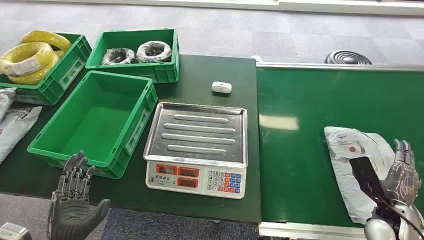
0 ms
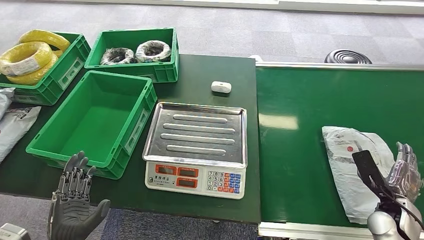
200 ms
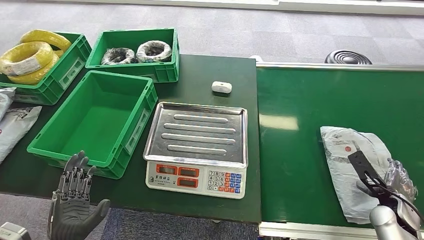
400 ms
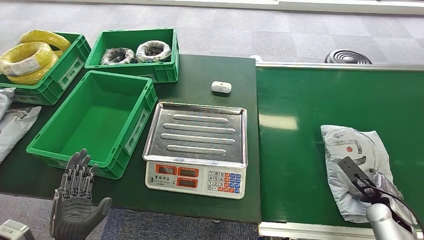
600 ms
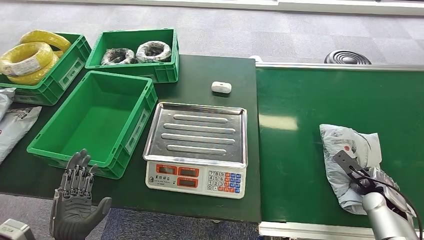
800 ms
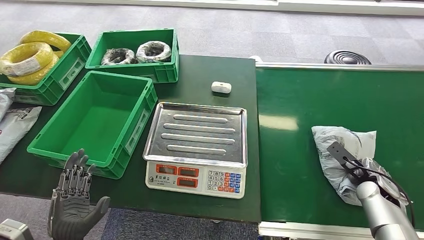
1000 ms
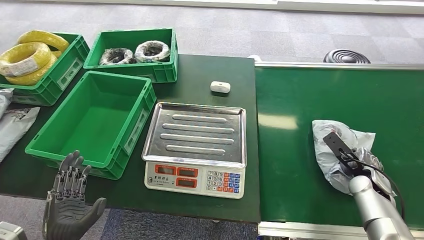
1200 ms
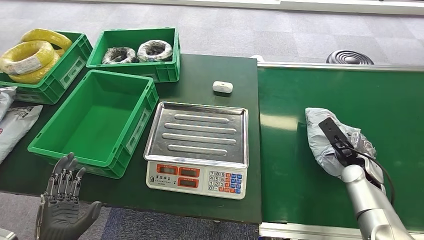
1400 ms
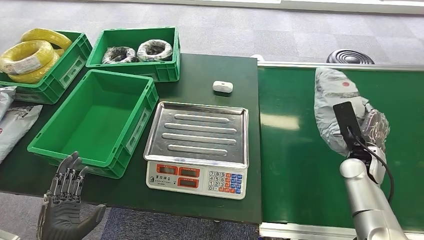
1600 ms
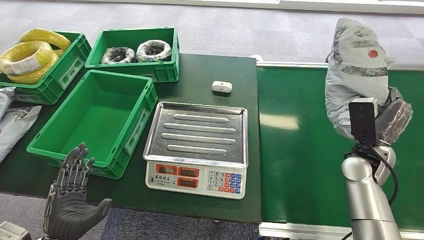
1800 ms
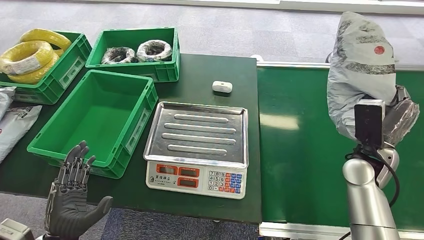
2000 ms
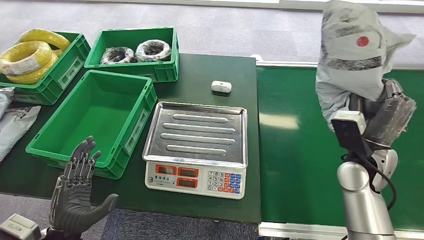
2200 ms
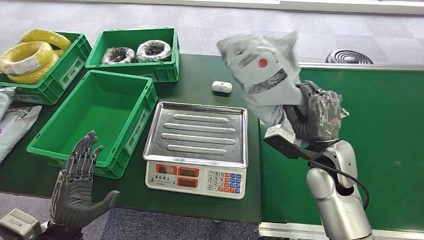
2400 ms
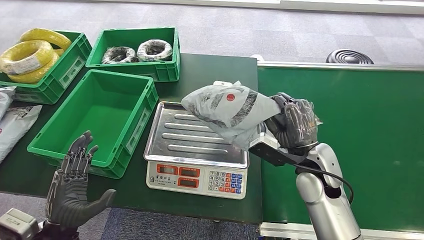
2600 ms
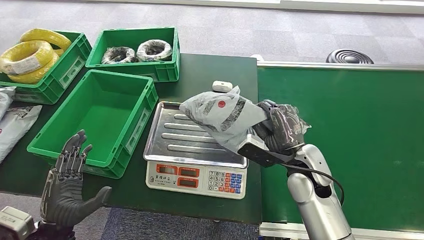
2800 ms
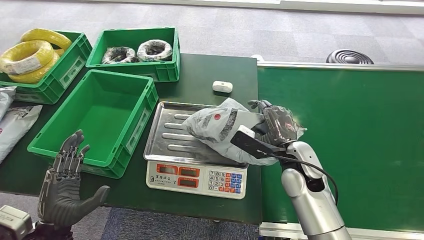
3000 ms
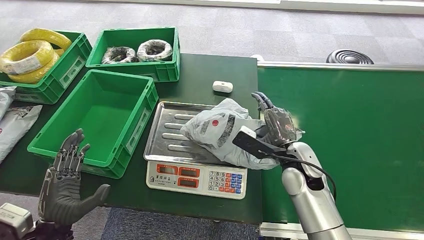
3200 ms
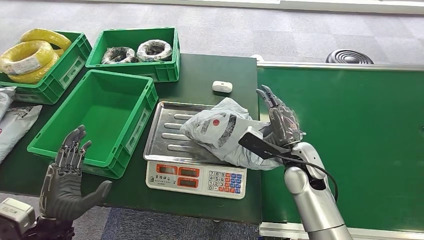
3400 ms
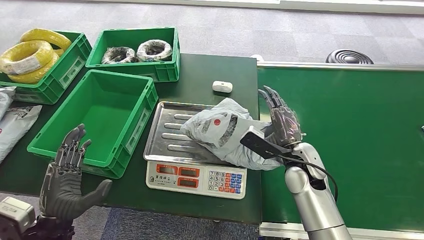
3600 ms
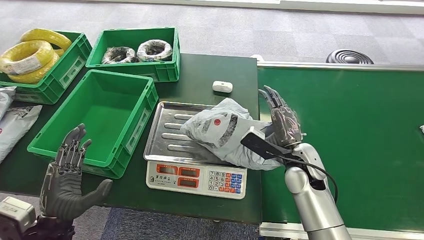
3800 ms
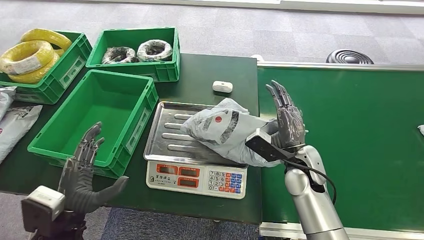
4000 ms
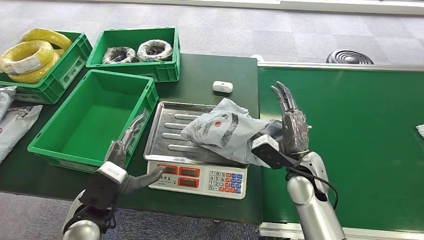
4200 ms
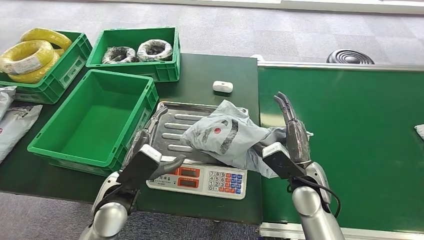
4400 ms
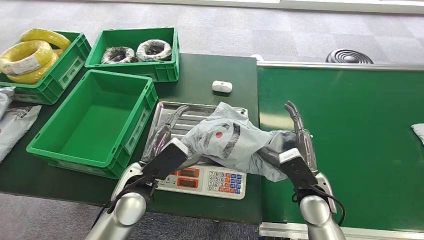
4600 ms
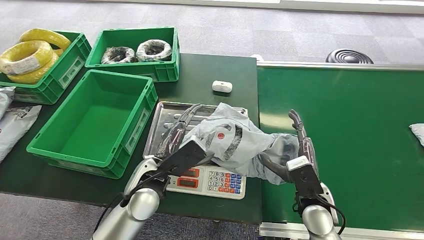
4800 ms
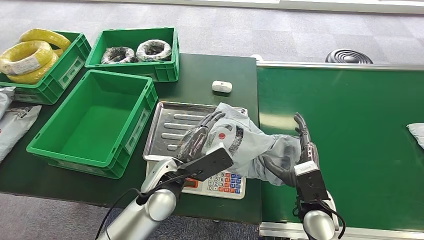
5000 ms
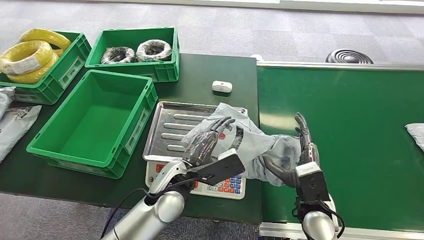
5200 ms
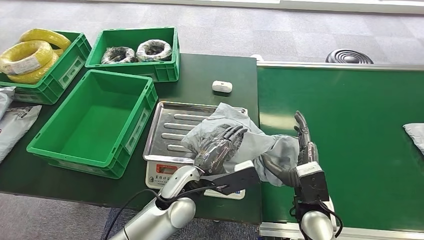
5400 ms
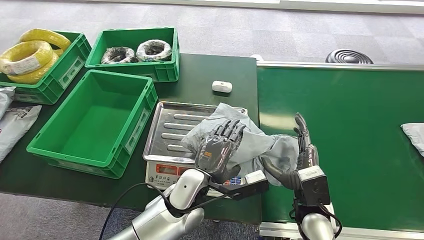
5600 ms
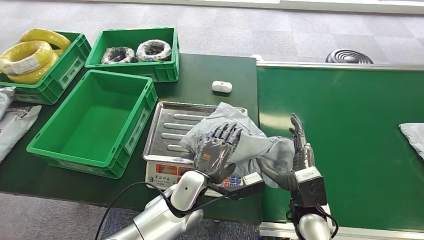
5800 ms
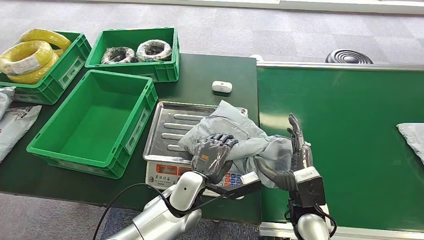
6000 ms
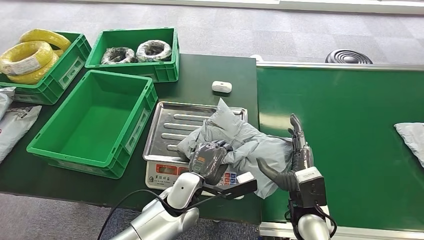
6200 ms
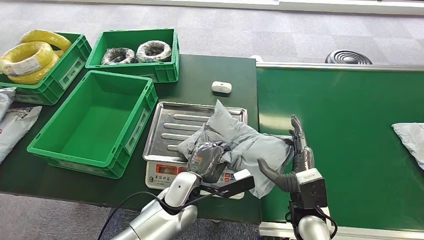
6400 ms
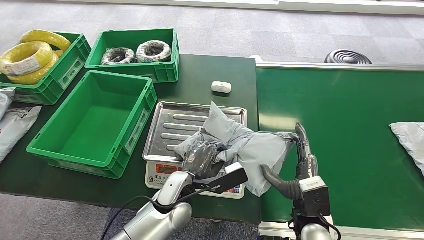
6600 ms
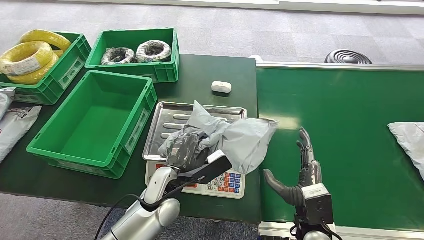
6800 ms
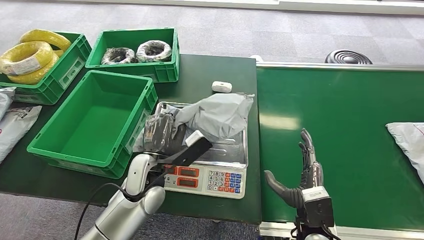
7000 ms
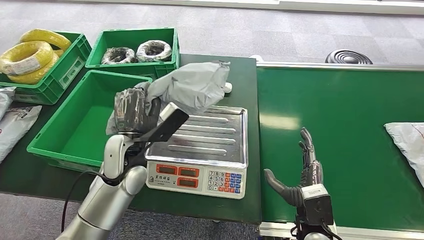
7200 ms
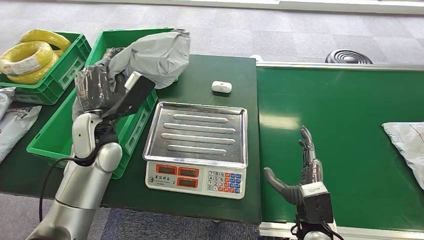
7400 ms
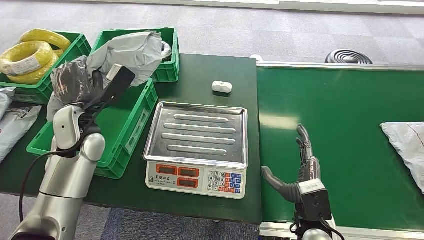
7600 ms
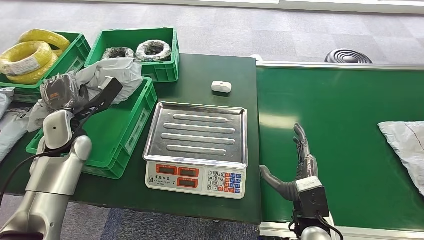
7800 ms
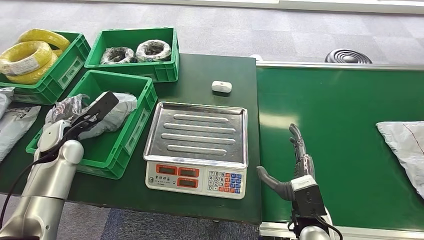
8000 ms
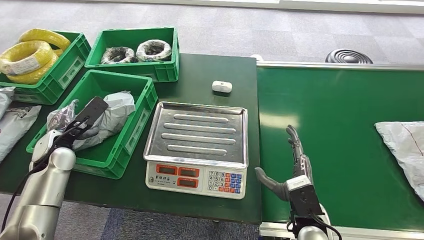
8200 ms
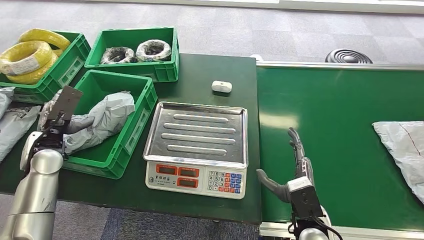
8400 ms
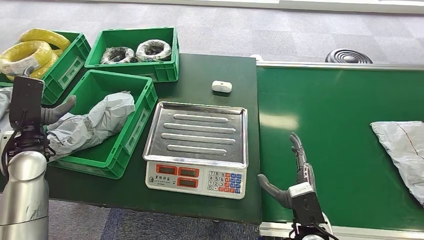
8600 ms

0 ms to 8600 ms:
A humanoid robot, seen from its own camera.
Step, 0 ms to 1600 ms: Pick up the package from the conveyor belt.
Step, 2000 ms to 6000 ms: Place the package onto the inbound machine.
Step, 6200 ms to 7400 ms: Pick up the package from the inbound machine.
Step, 7800 ms to 8600 ms: Place the package into the parcel locker.
2800 ms to 4400 ms: The left hand is displaced to the right and forward by some 15 cm.
4400 ms to 5800 ms: The right hand shifts about 5 cm backward, while the left hand heads to the right, covering about 15 cm.
